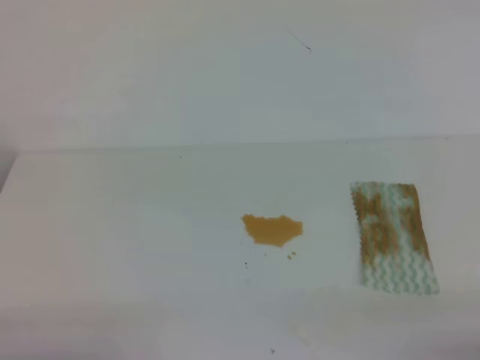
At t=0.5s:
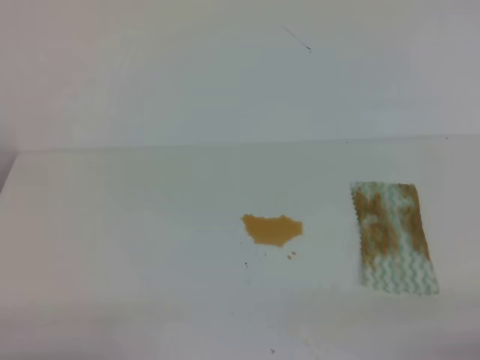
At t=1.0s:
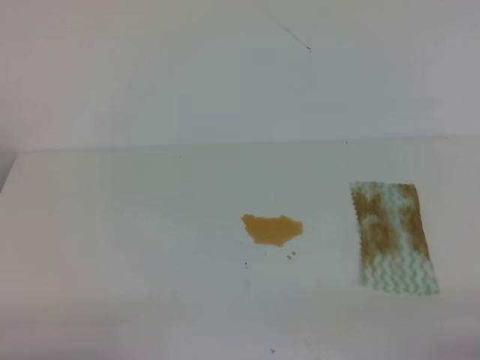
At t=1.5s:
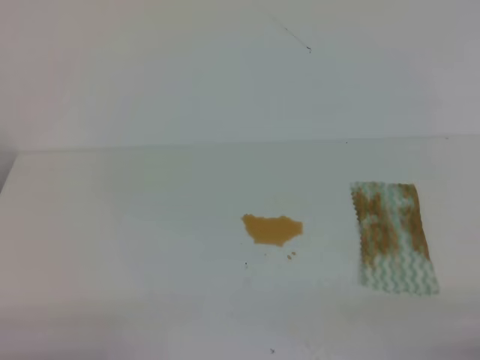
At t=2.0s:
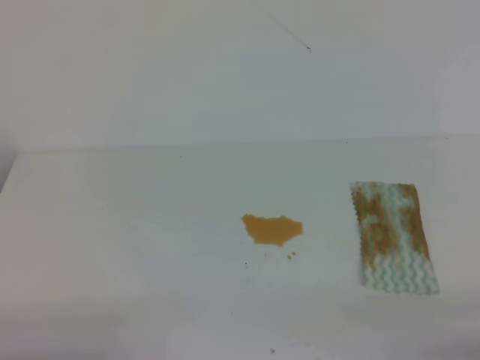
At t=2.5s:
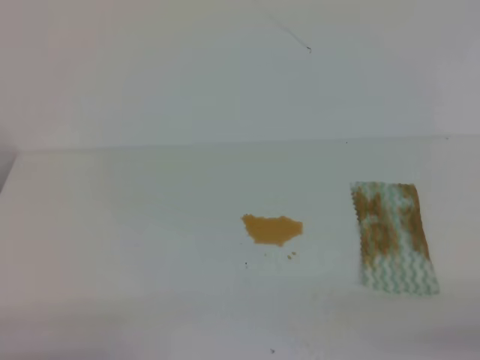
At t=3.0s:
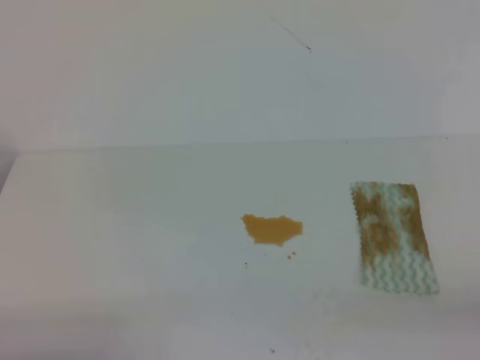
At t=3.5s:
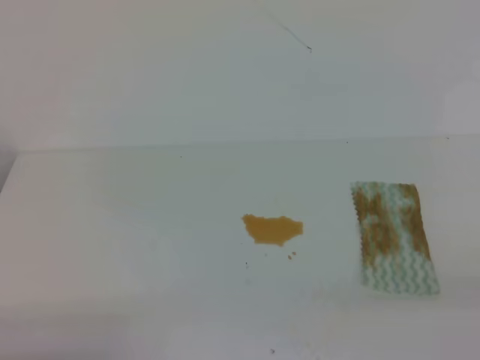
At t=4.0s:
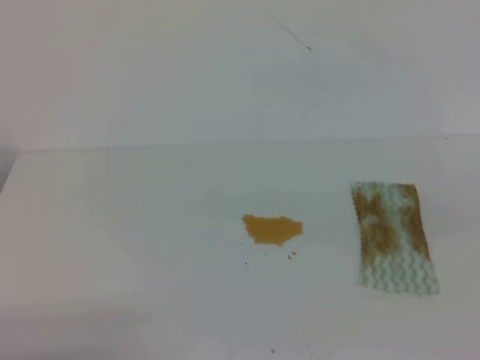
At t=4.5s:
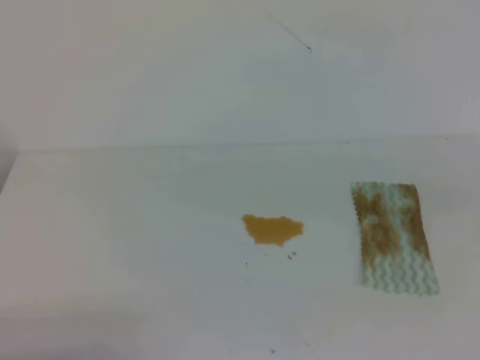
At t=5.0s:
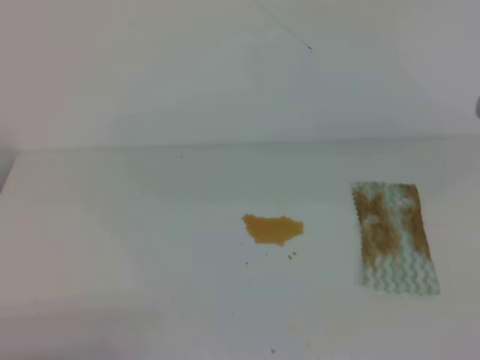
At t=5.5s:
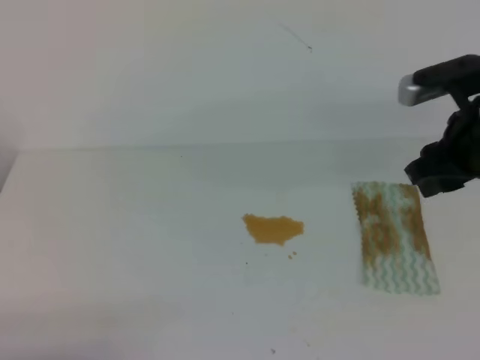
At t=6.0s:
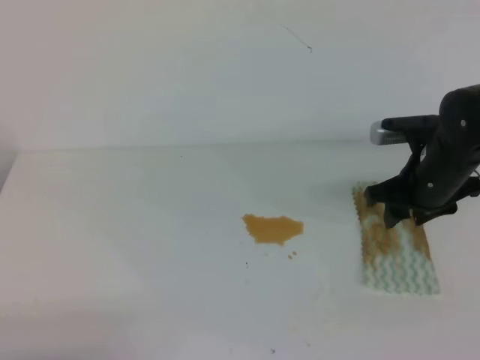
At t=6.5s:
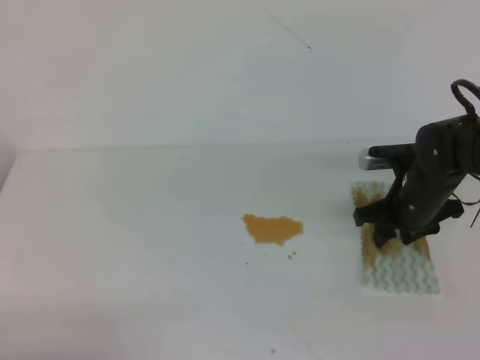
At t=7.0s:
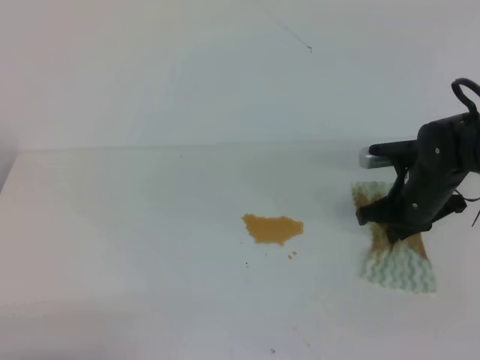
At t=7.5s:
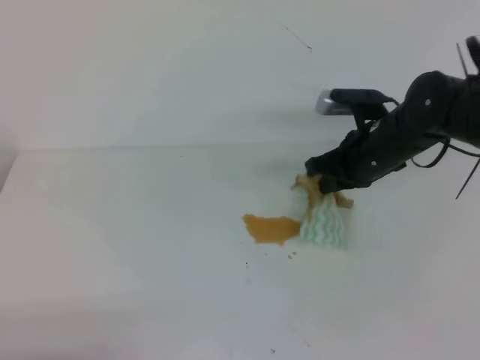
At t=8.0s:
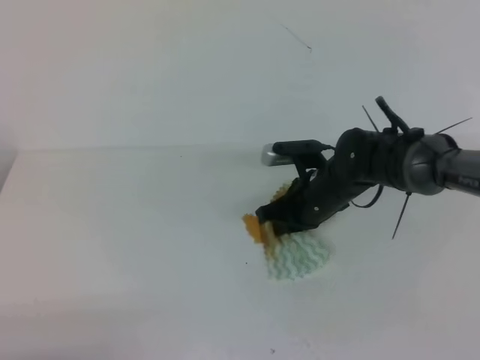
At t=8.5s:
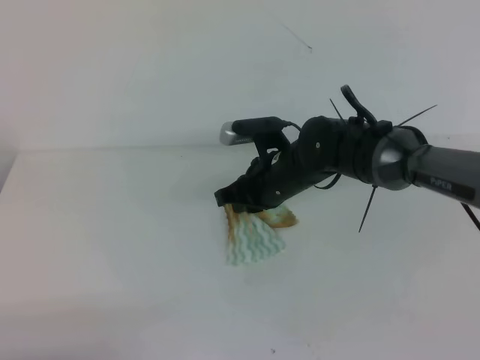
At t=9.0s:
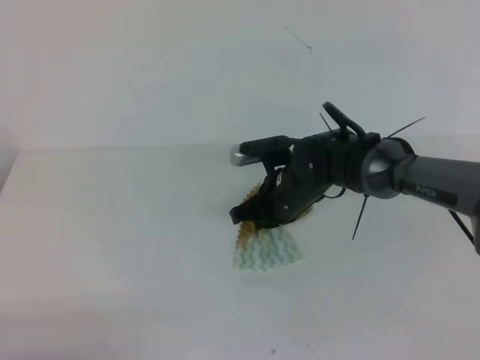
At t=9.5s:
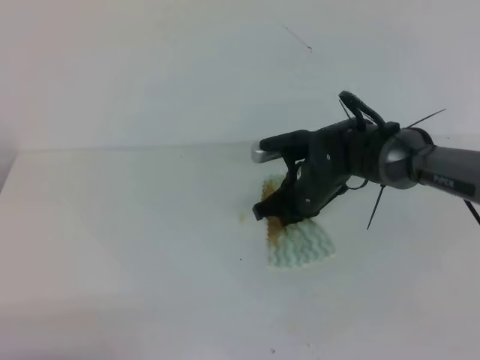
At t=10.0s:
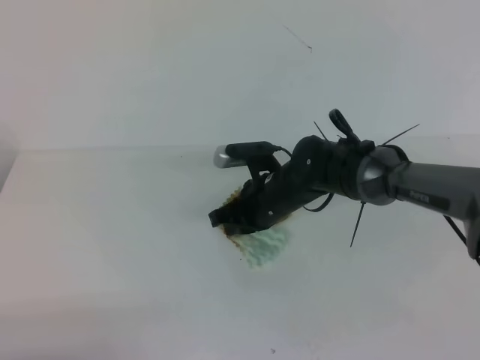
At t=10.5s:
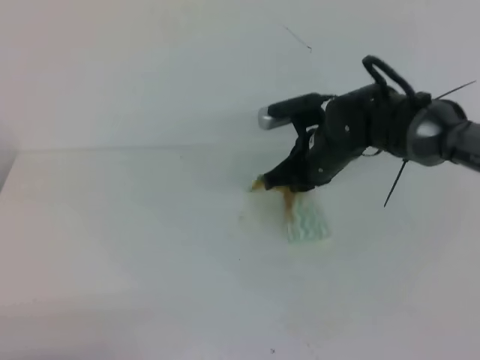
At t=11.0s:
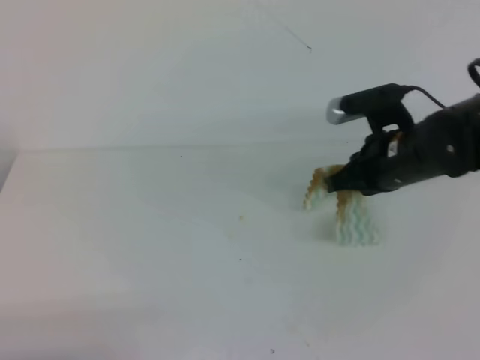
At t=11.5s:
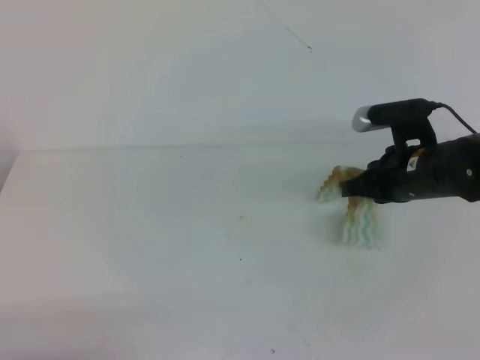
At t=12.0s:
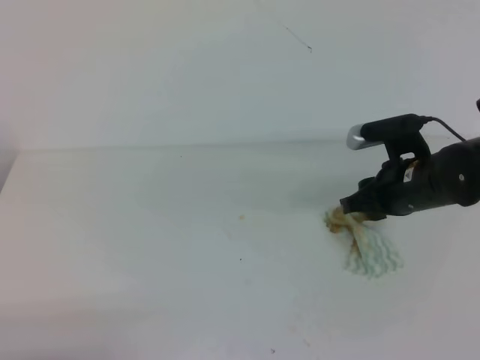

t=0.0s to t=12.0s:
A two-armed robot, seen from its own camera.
t=0.0s to t=2.0s: Both grippers stay put.
t=4.0s to t=6.0s: The right gripper heads forward and downward, covering approximately 35 cm, and opens up.
t=6.0s to t=8.0s: The right gripper heads to the left and downward, covering approximately 15 cm, and closes.
t=8.0s to t=10.0s: The right gripper shifts about 5 cm to the left.
t=10.0s to t=12.0s: The right gripper is displaced to the right by about 15 cm, and opens its fingers.

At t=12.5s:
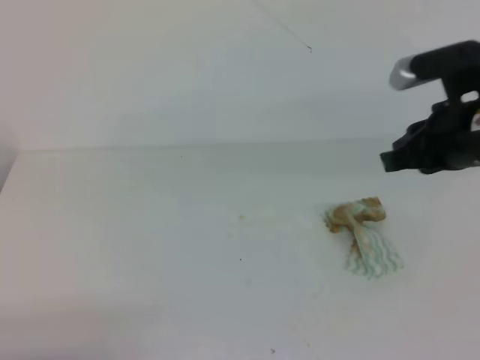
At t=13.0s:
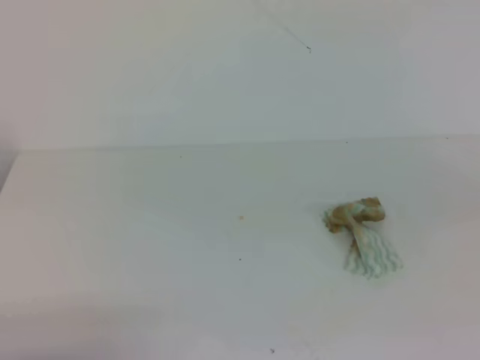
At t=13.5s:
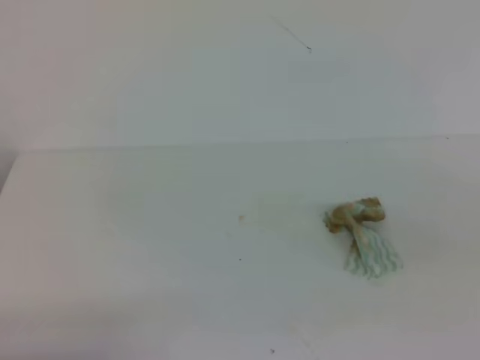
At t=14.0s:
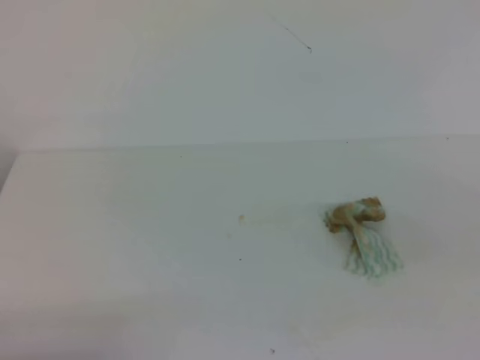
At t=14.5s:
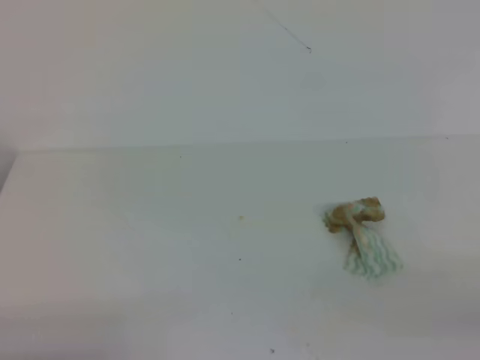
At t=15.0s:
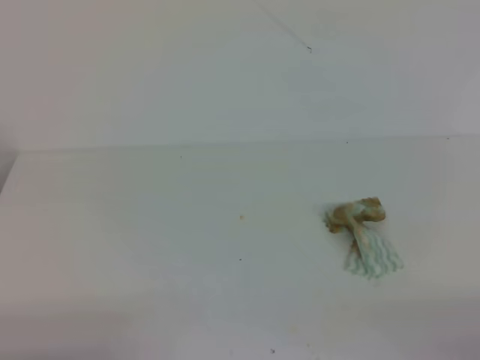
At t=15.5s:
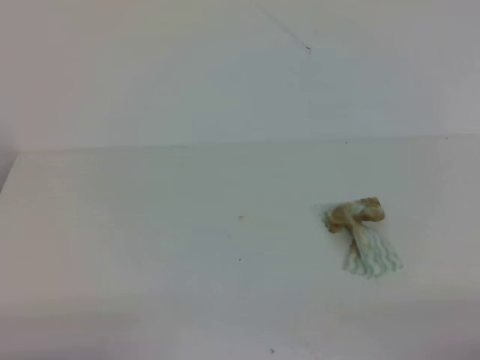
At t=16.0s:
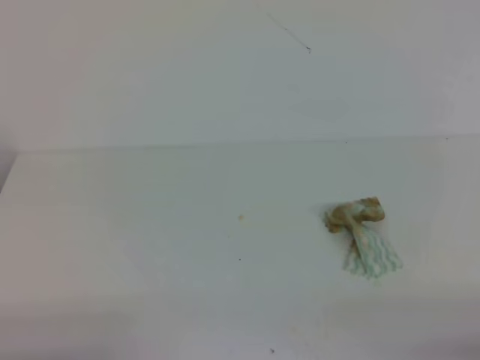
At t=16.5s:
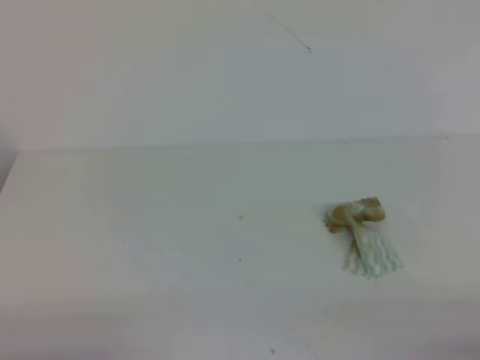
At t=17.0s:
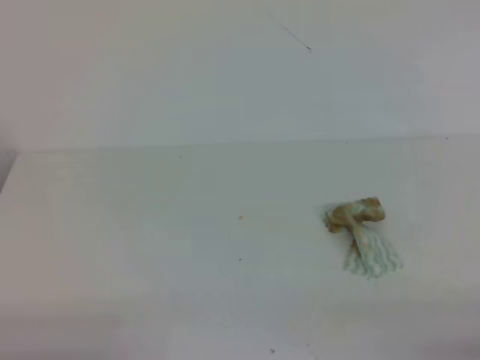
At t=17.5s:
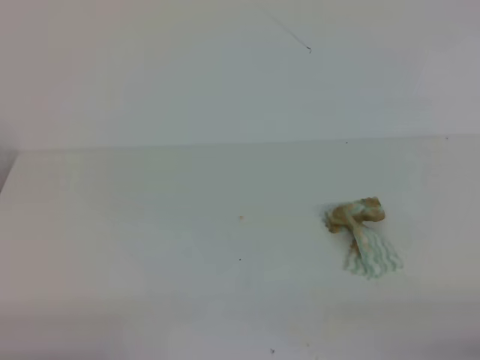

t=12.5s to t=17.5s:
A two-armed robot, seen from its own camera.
t=12.5s to t=15.0s: The right gripper moves backward and to the right, approximately 30 cm, and closes.
